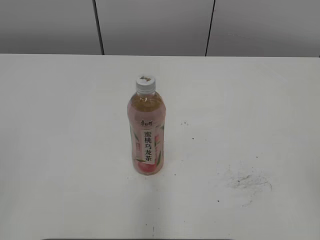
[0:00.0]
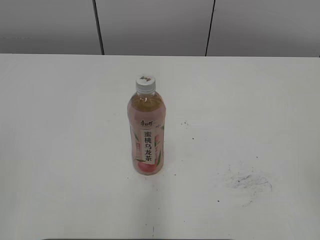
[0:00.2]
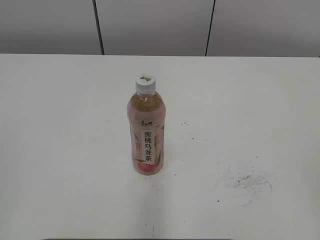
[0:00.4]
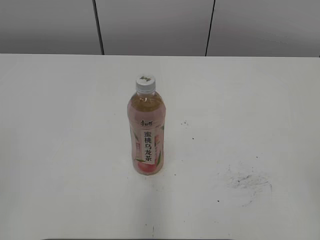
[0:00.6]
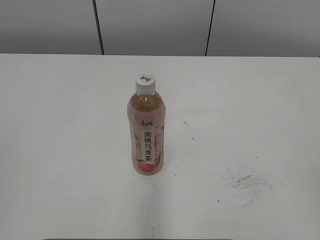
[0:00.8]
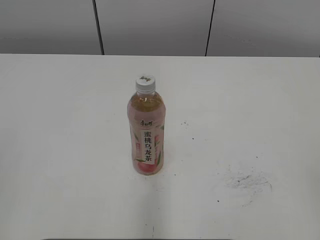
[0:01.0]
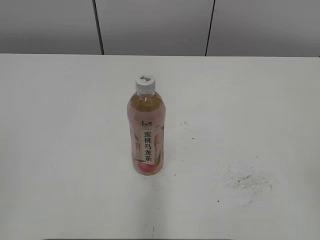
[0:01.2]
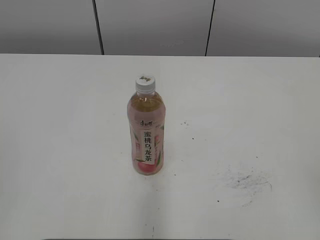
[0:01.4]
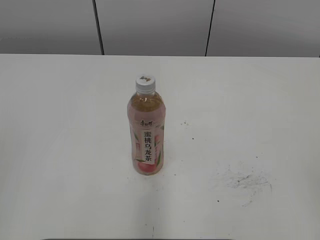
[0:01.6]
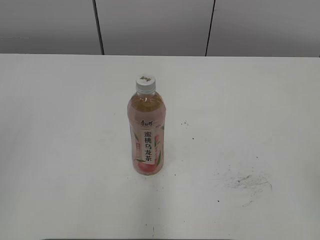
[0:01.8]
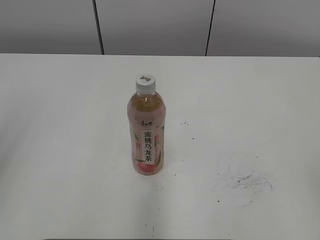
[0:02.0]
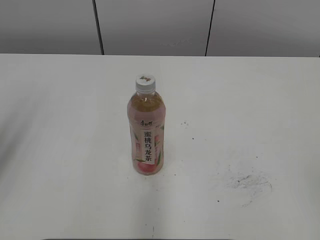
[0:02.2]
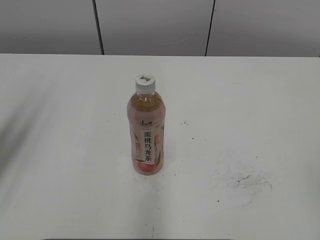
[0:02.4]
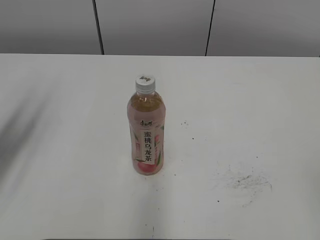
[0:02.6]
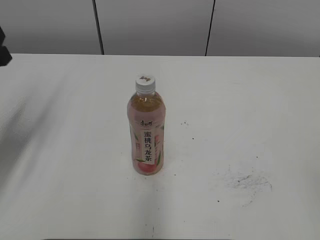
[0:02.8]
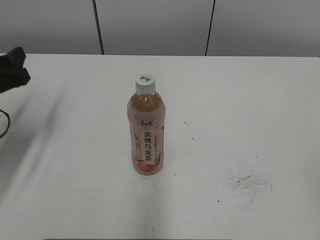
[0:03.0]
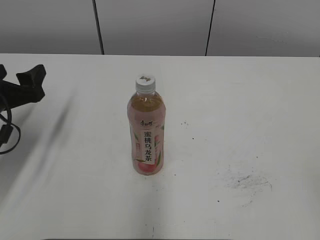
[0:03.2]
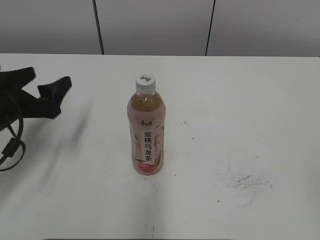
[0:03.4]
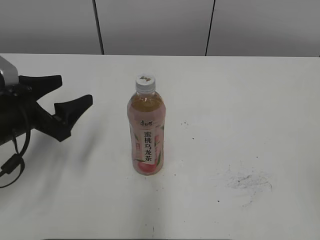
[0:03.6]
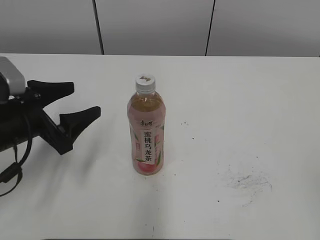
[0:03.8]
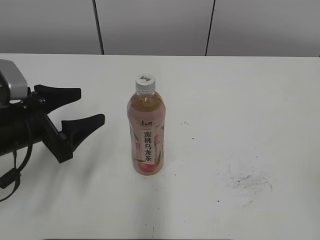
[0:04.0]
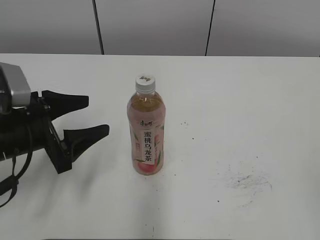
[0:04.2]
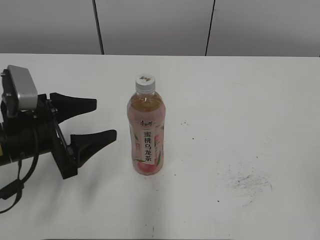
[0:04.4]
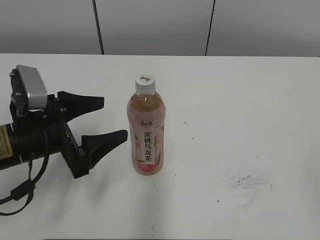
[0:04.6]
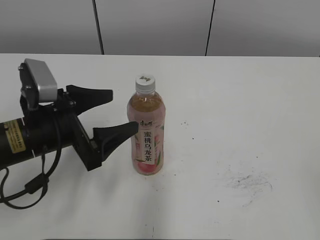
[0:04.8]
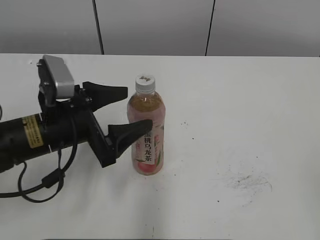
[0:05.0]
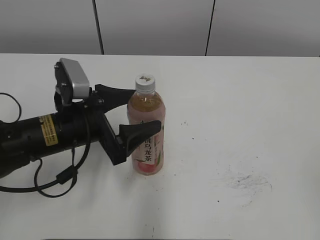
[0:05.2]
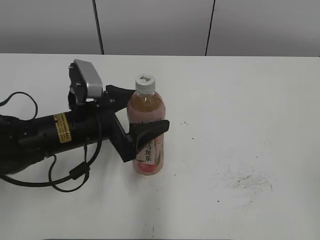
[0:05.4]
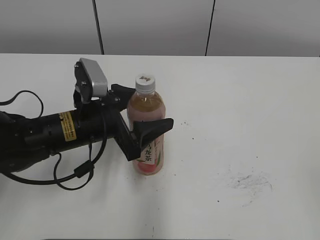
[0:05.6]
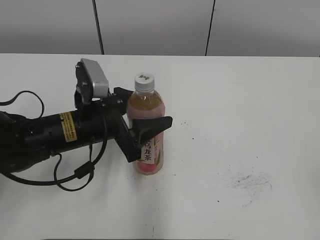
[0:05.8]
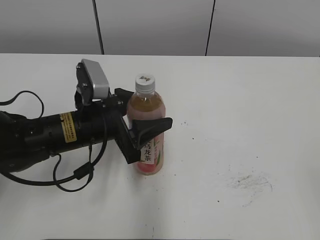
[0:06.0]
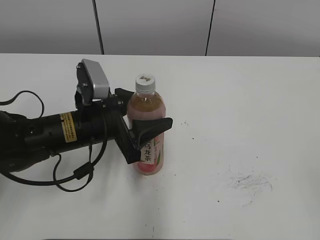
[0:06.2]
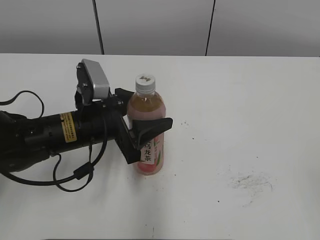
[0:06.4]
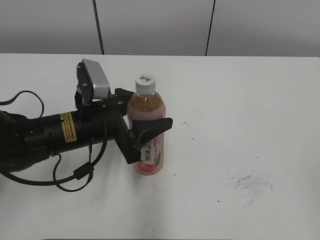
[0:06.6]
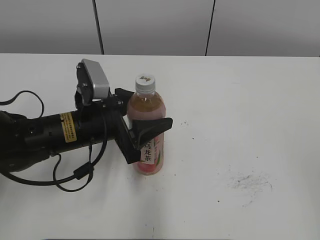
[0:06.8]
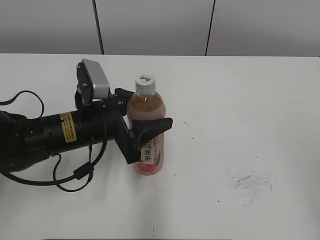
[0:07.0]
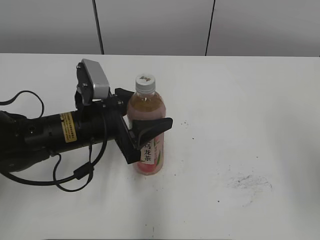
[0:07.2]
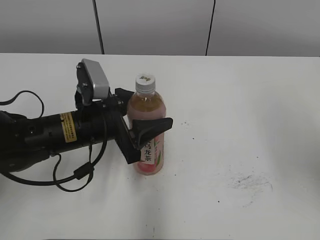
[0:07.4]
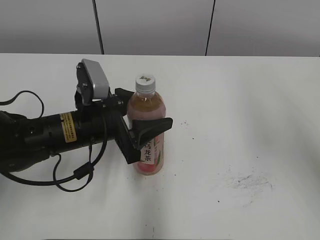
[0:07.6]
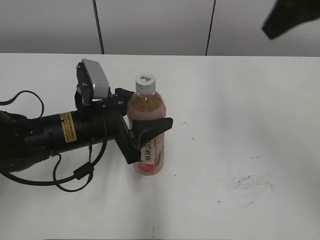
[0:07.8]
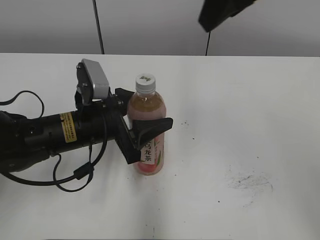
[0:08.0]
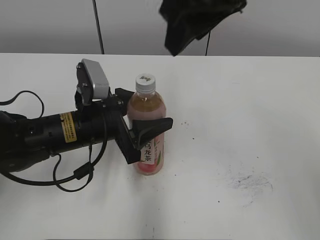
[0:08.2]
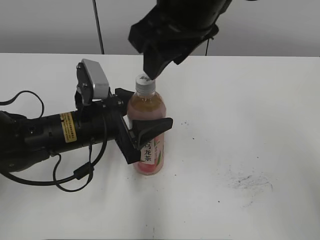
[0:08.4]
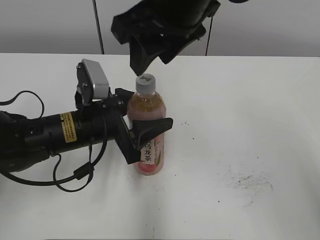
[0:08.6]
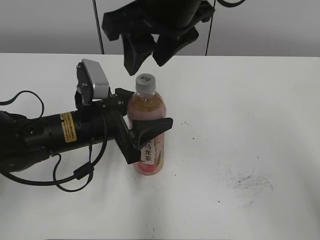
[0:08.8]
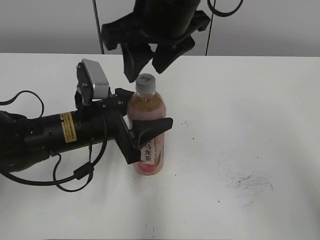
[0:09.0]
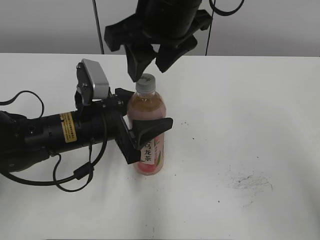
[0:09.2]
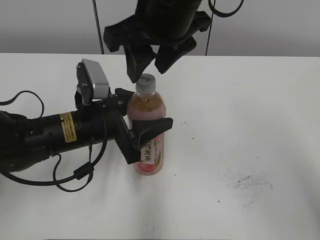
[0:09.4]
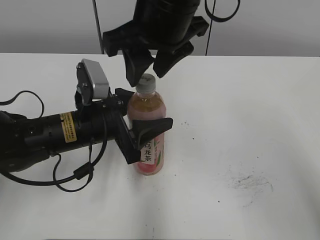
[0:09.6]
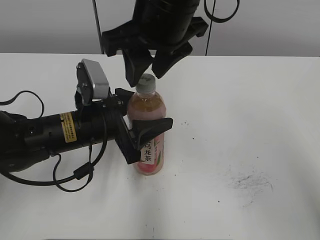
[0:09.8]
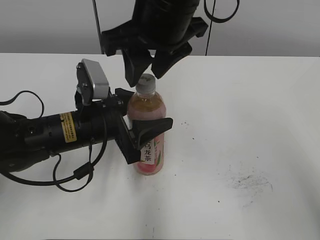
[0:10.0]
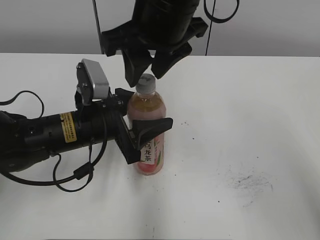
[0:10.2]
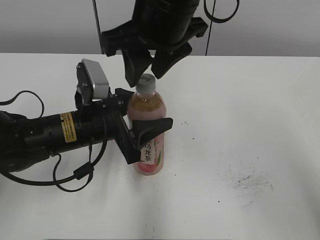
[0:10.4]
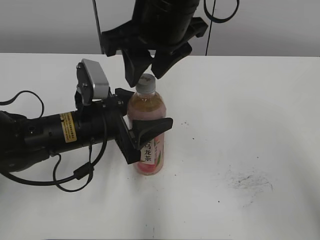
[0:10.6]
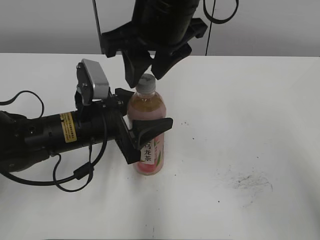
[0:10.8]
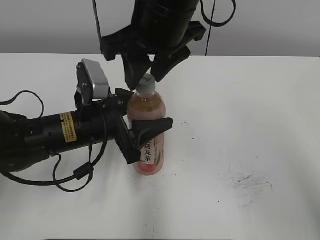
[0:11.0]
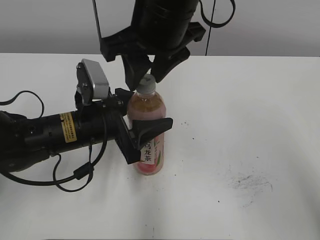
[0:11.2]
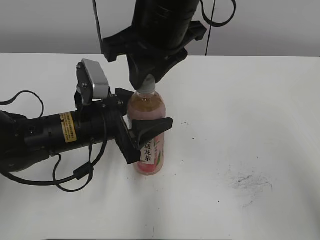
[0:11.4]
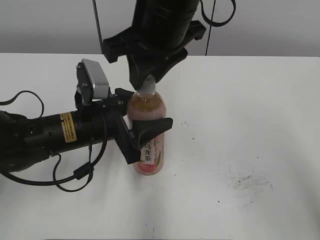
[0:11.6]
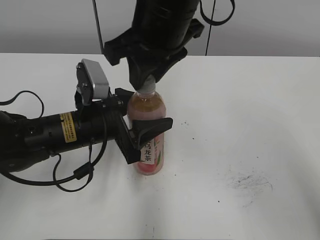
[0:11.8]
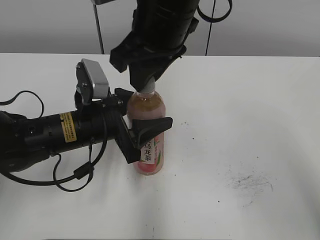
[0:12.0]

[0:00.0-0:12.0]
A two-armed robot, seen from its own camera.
Step, 0:00.0 to 0:09.8: Grab the Peach Oolong Tea with the left hand.
0:01.6 to 0:03.0: The left gripper shifts approximately 30 cm forward and downward, and opens its fingers.
0:03.0 to 0:04.4: The left gripper moves to the right, approximately 10 cm.
0:04.4 to 0:06.0: The left gripper moves to the right, some 10 cm.
0:06.0 to 0:07.6: The right gripper shifts about 25 cm forward and upward.
0:07.6 to 0:09.0: The right gripper is displaced to the left by approximately 25 cm.
0:09.0 to 0:10.4: Both grippers stay put.
0:10.4 to 0:12.0: The grippers move only a little.

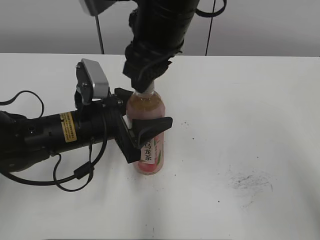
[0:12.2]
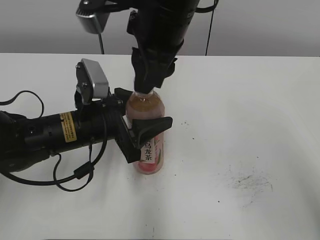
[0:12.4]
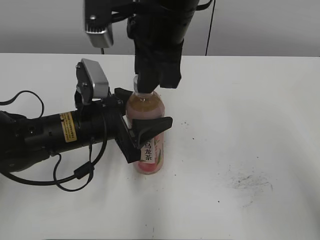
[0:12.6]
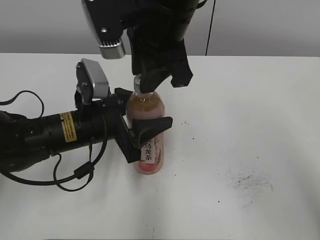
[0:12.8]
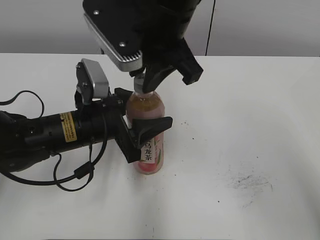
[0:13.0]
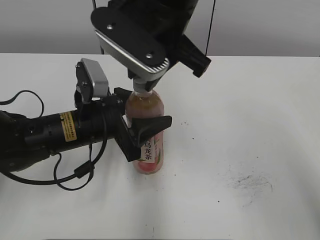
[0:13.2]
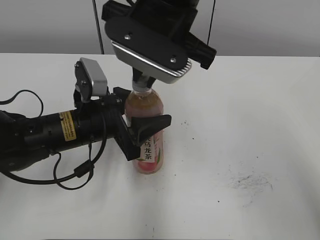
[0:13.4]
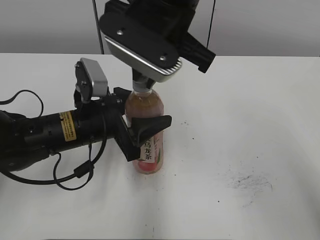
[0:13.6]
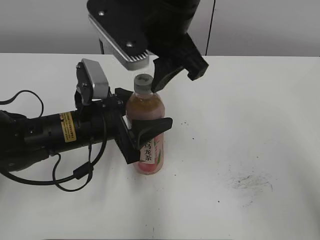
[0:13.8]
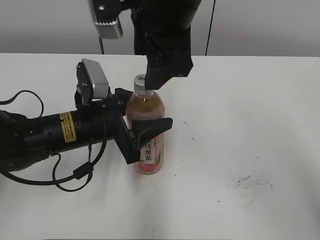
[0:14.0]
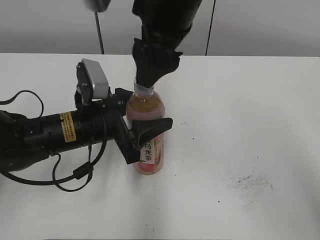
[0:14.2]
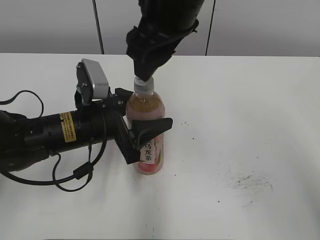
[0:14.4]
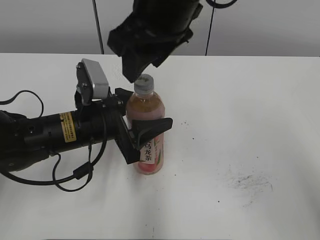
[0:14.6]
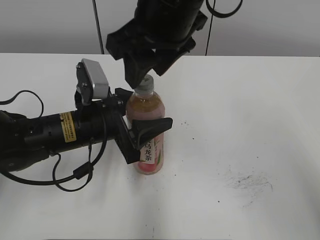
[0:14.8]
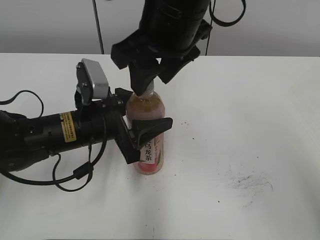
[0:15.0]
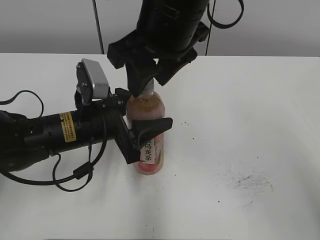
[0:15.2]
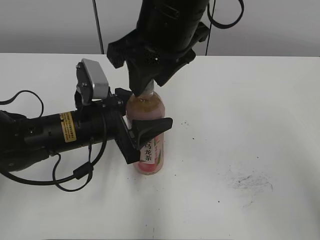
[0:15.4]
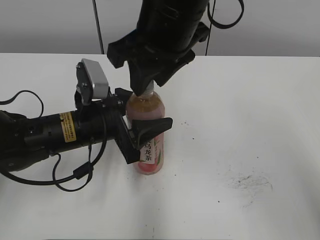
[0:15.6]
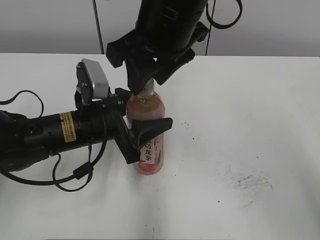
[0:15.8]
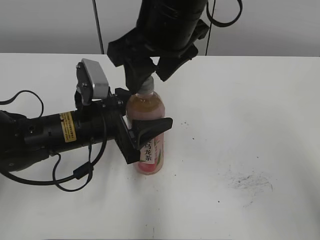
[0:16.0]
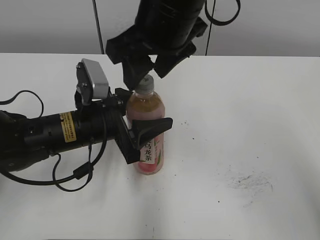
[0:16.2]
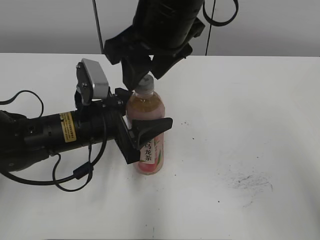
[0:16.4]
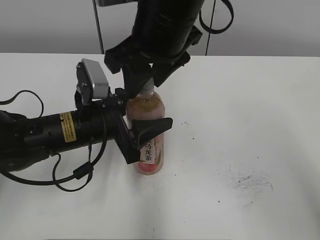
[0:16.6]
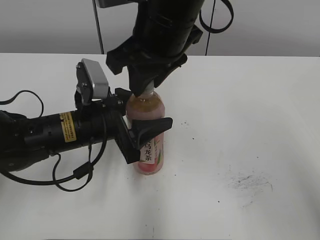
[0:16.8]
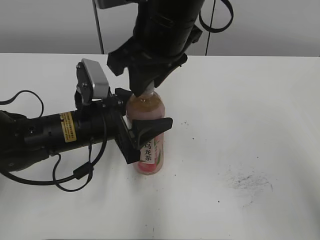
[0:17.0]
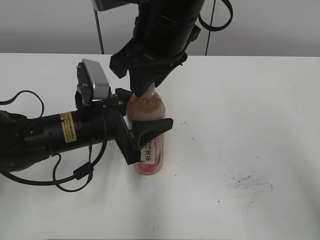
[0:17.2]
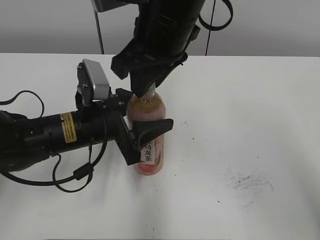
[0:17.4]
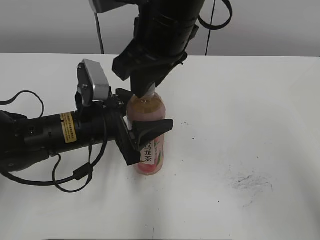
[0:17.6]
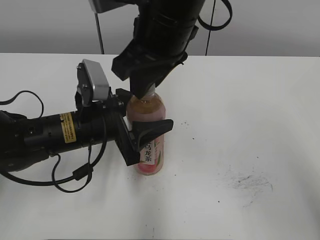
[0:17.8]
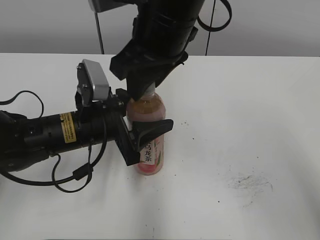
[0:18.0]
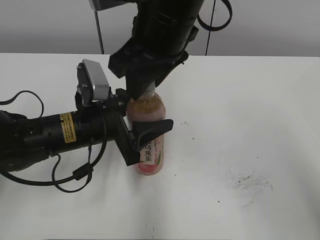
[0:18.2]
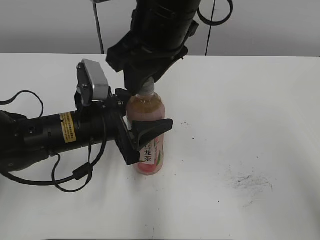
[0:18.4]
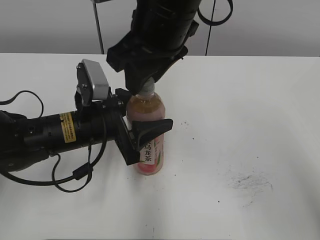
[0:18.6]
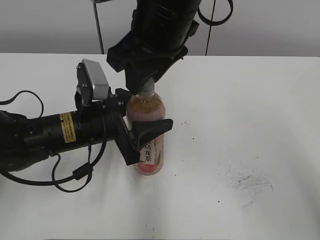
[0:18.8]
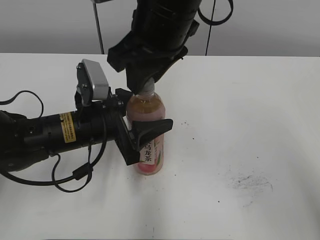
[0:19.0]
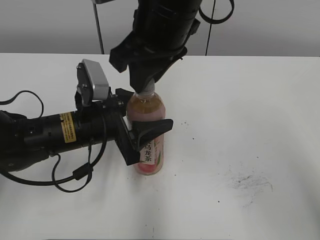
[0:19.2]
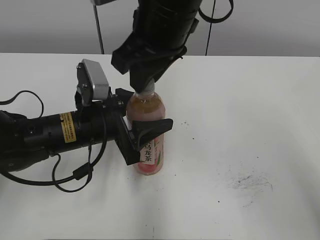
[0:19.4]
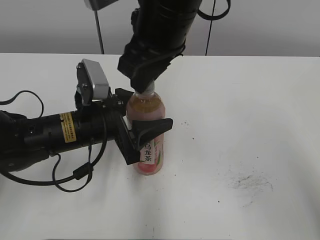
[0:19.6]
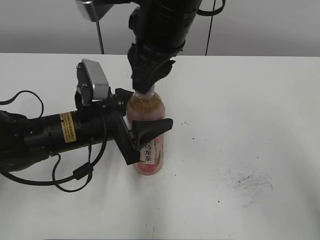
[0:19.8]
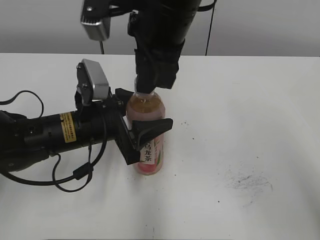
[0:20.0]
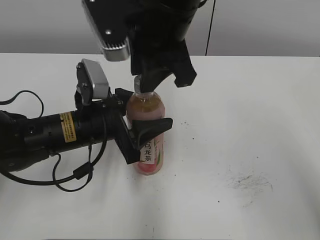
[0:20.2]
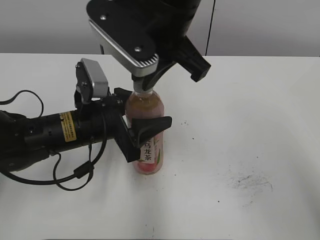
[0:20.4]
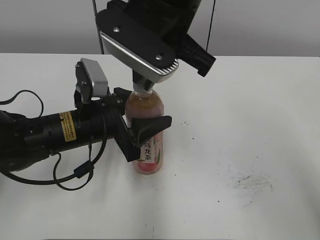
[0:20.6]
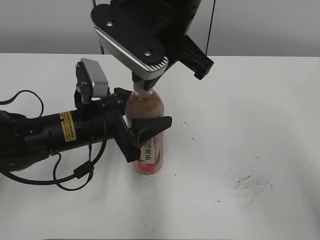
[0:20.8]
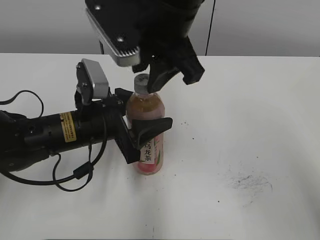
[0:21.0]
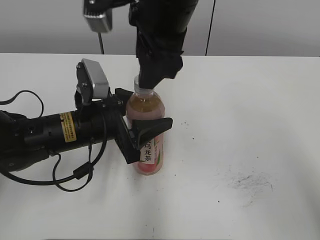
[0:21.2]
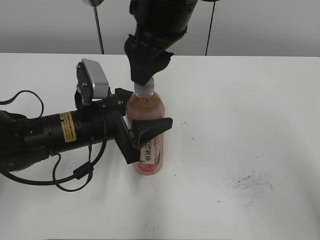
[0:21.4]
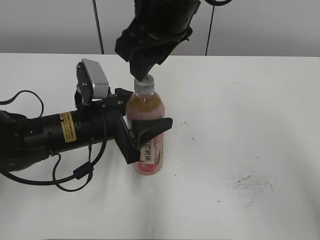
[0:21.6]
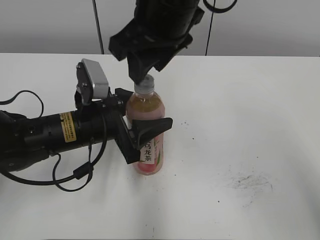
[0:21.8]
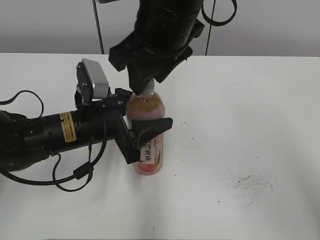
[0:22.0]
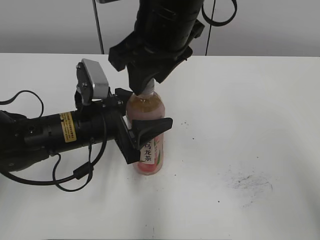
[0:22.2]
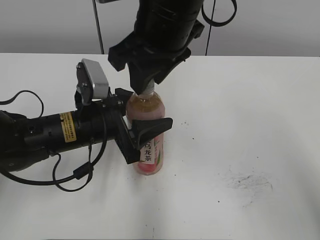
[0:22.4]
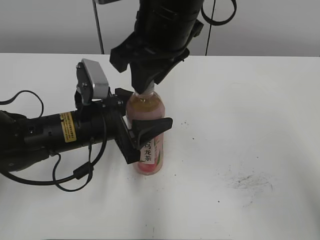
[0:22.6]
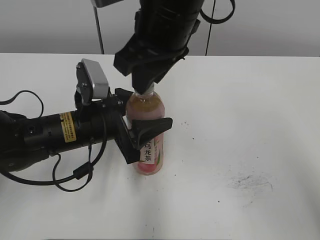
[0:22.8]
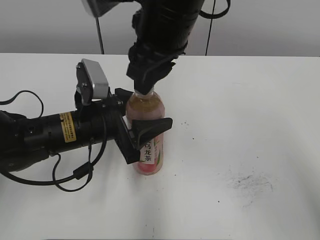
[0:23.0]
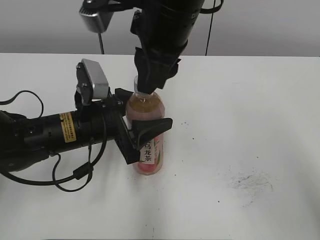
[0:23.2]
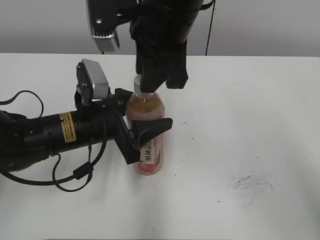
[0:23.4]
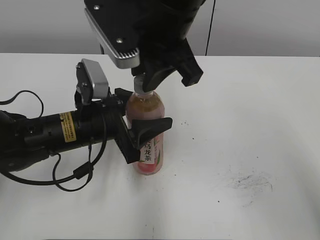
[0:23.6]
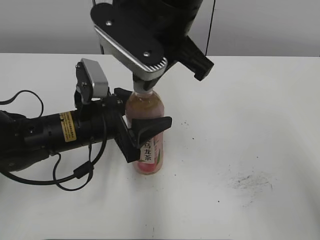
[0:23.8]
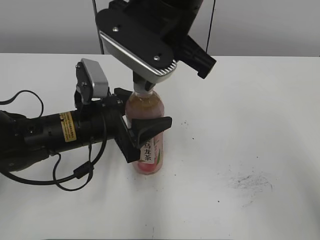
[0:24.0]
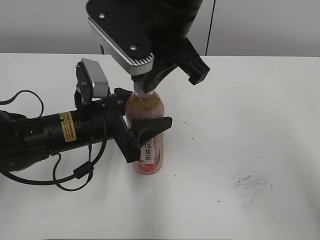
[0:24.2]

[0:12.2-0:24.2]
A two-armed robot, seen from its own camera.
0:15.2 to 0:16.6: The two grippers keep their place.
0:16.6 to 0:18.2: The grippers move only a little.
0:19.8 to 0:21.2: The right gripper opens up.
0:21.2 to 0:22.6: The right gripper closes up.
